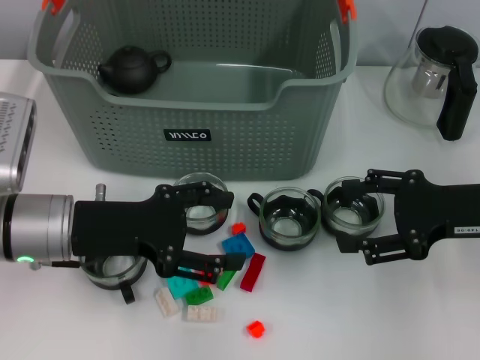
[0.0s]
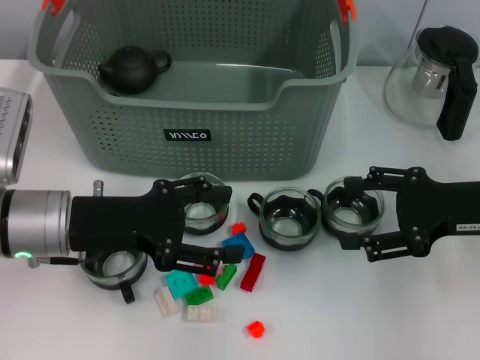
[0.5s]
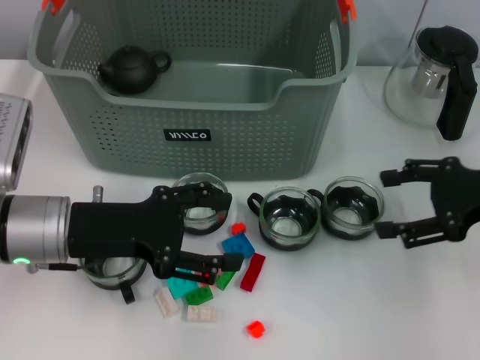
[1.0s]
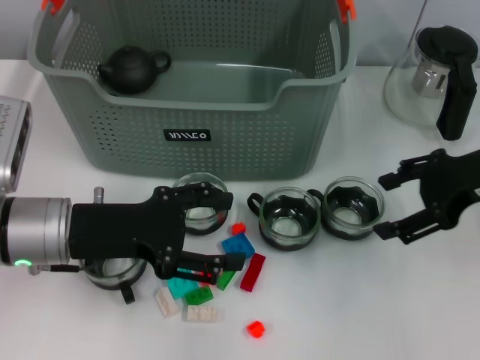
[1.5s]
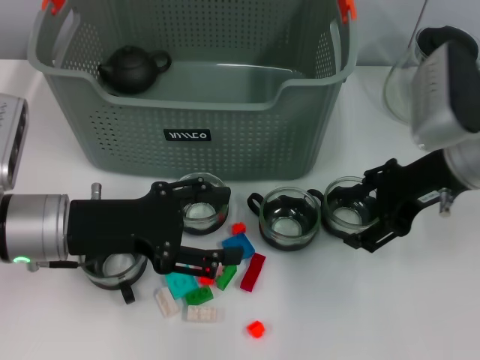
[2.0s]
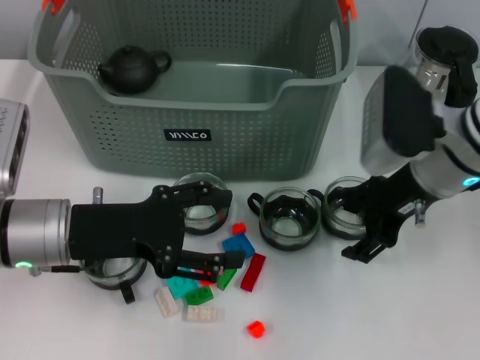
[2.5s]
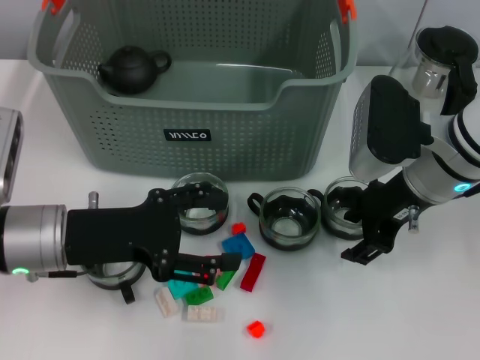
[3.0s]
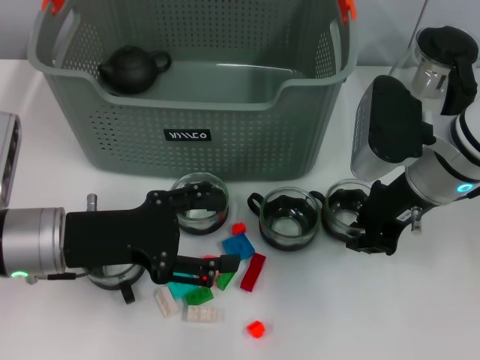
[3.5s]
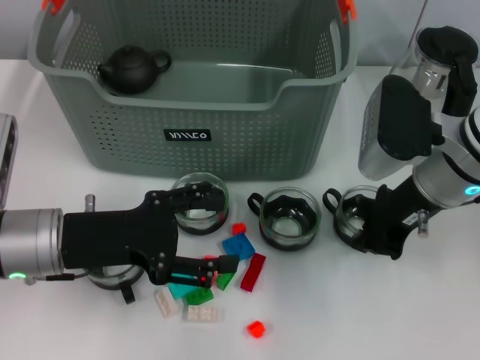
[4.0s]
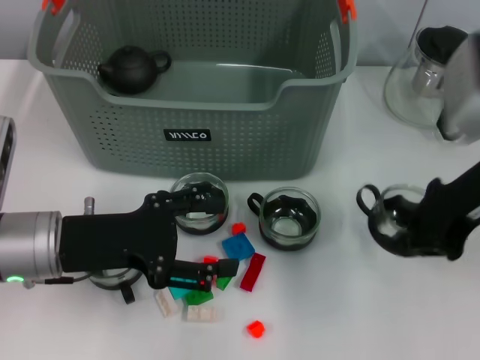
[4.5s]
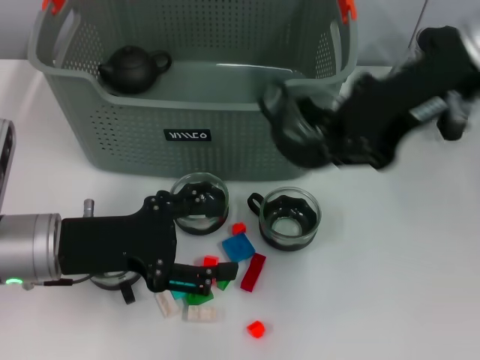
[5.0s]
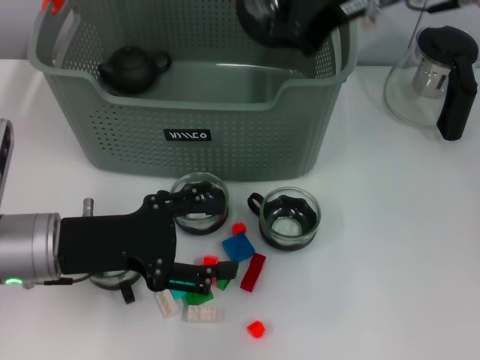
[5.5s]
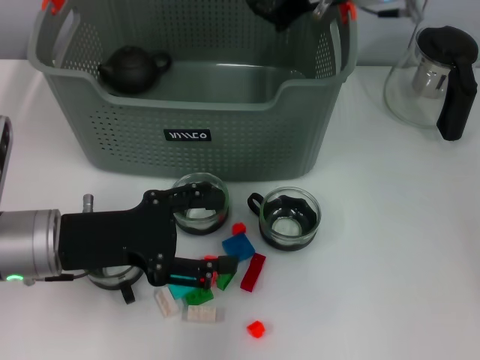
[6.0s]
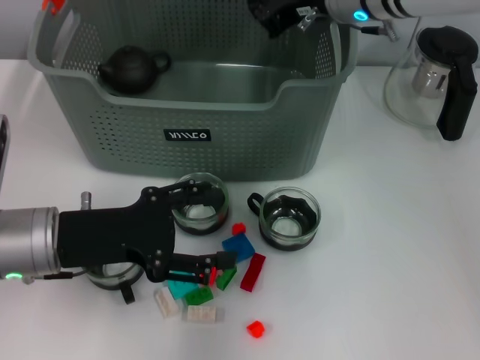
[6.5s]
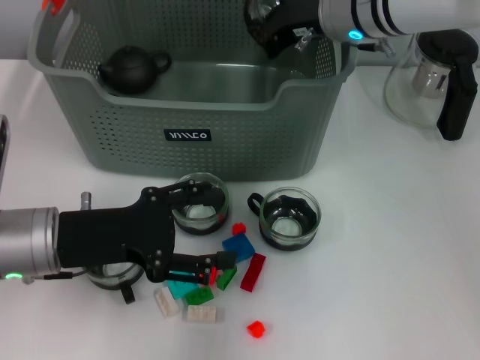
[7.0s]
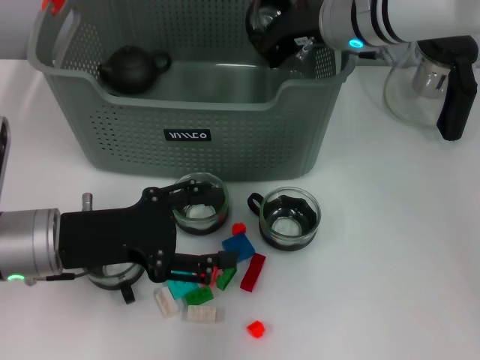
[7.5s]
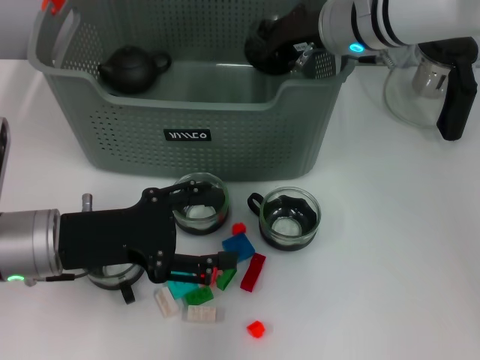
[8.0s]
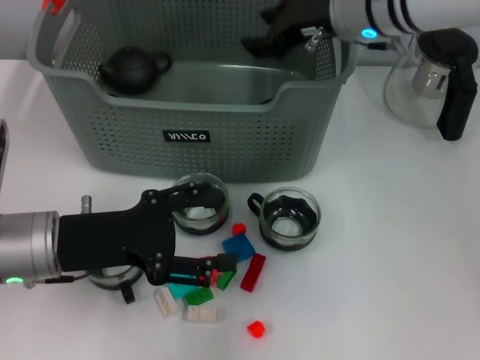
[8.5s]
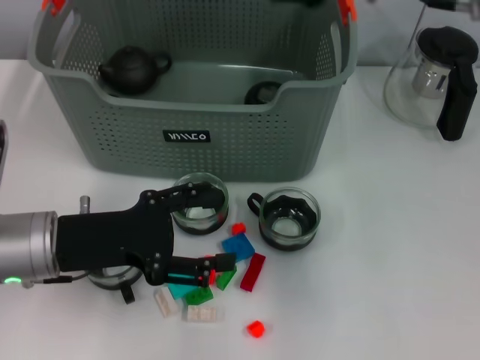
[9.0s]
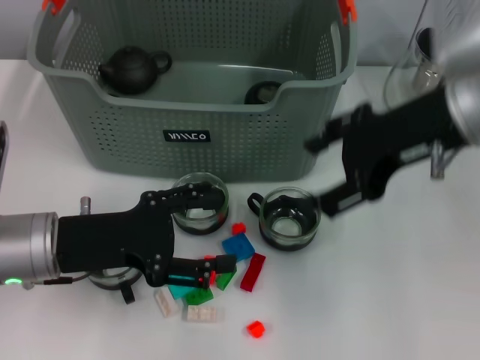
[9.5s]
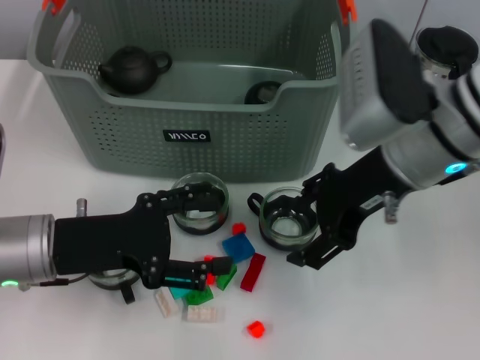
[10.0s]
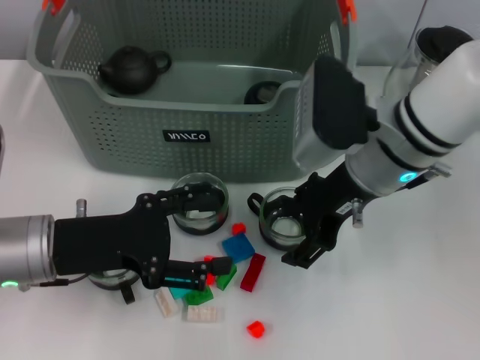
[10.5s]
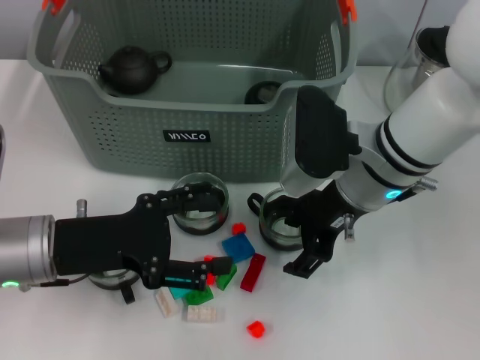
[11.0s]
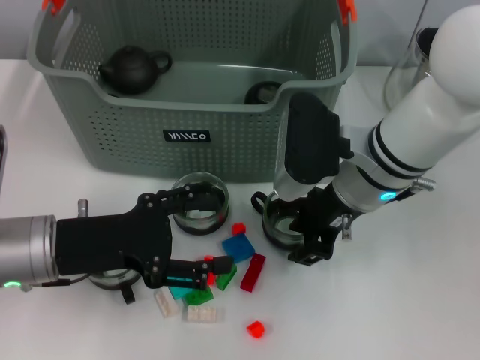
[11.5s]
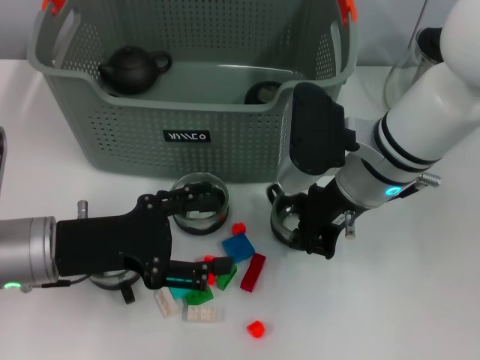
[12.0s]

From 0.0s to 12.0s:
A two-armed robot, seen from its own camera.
Task of the whole recording: pick up the teacup on the table and place it into the storage bin, pick up the block on the table and place it into the storage bin.
Step, from 0.0s to 3.5s: Grasp the cup with right gripper.
Step, from 4.0s to 8.0s: Place the cup in the storage box with right gripper.
Step, from 8.5s to 12.0s: Grasp the cup with right gripper.
From 0.0s to 2.0s: The right gripper travels to the left and forward by about 10 cm.
From 2.0s to 4.0s: The right gripper closes up.
From 4.0s to 6.0s: The right gripper travels upward, forward and to the left by some 15 cm.
From 6.0s to 8.0s: The right gripper goes roughly 5 cm downward.
From 8.0s to 10.0s: The right gripper heads backward, covering approximately 10 cm, and opens up.
From 10.0s to 12.0s: The right gripper travels downward by approximately 5 cm, and closes.

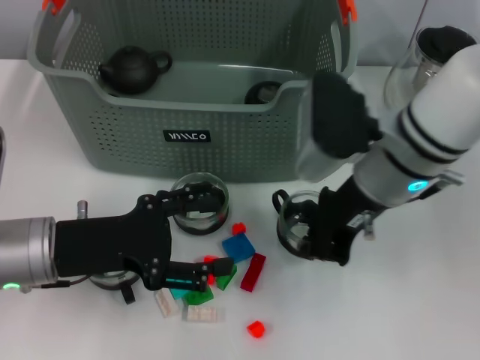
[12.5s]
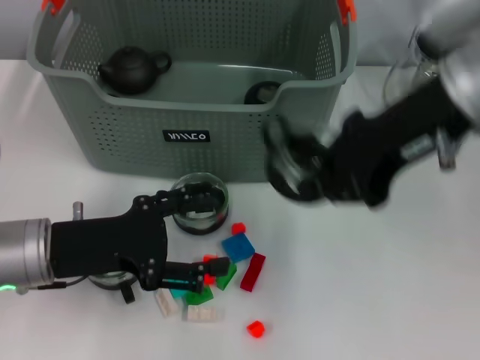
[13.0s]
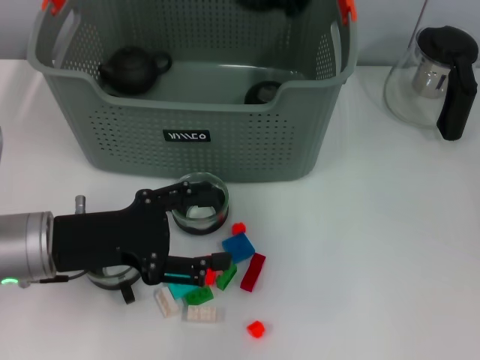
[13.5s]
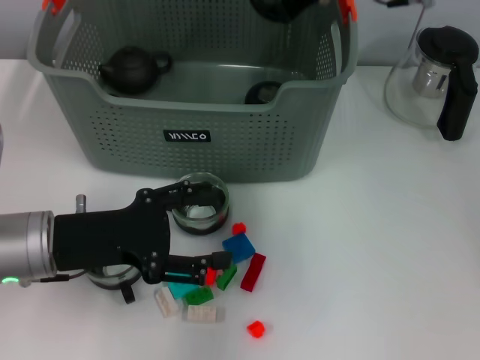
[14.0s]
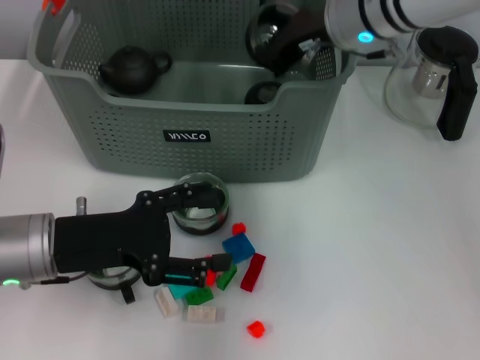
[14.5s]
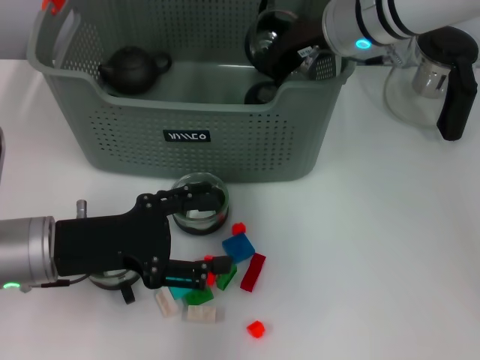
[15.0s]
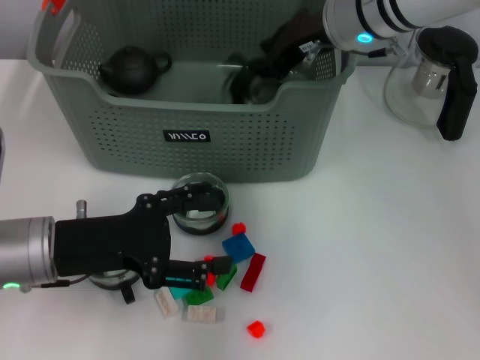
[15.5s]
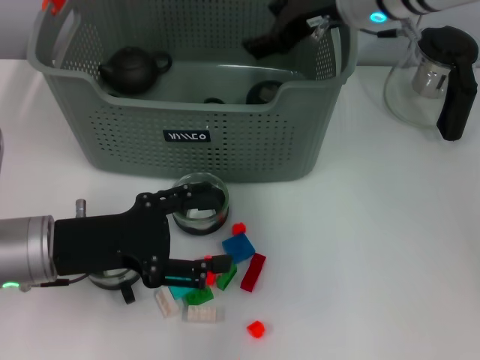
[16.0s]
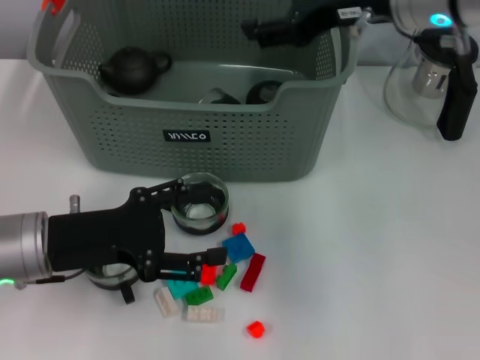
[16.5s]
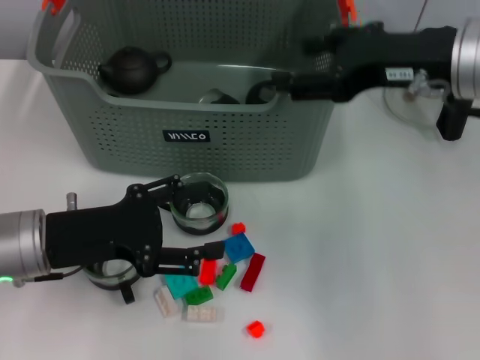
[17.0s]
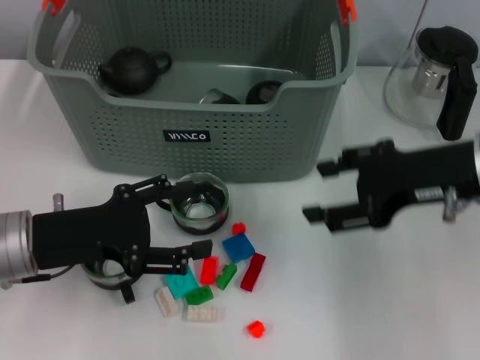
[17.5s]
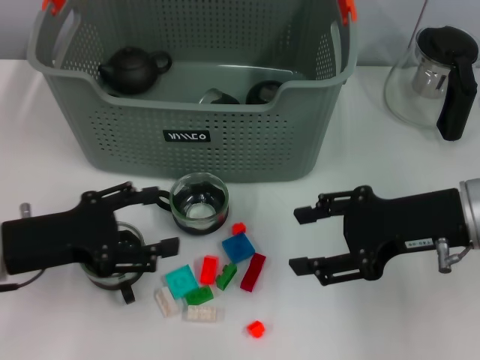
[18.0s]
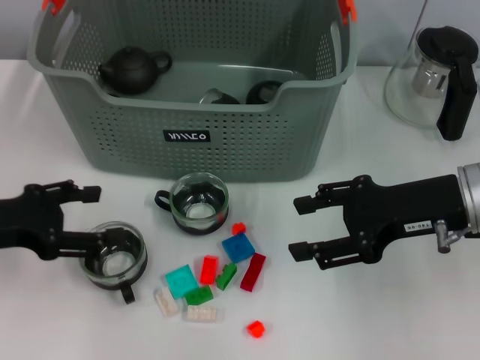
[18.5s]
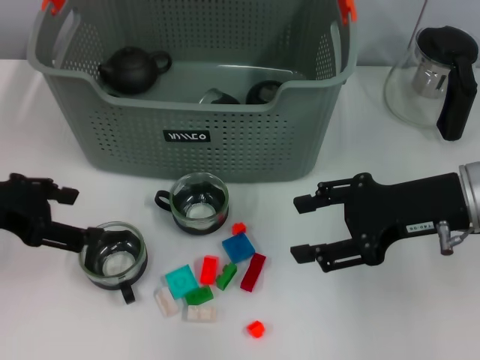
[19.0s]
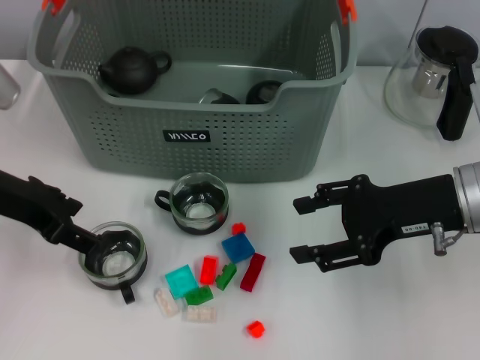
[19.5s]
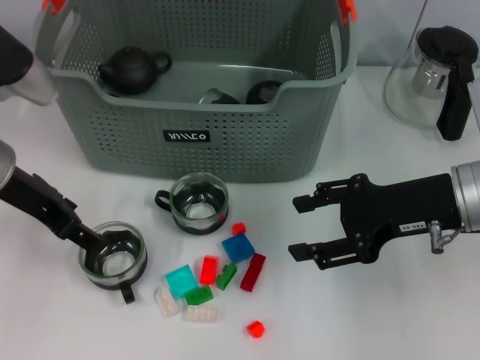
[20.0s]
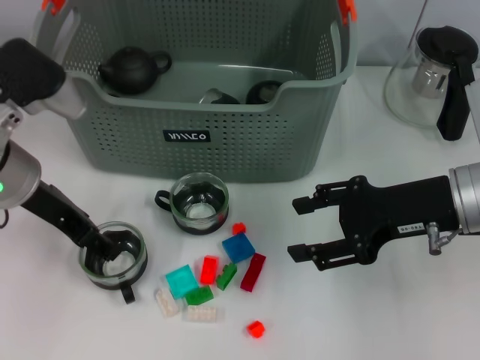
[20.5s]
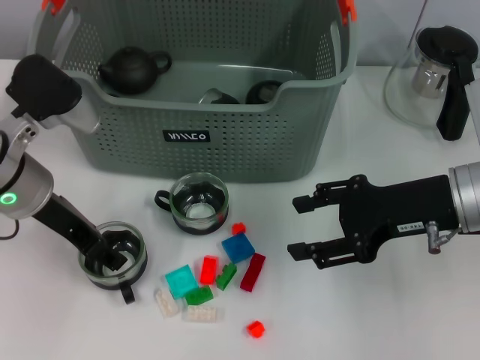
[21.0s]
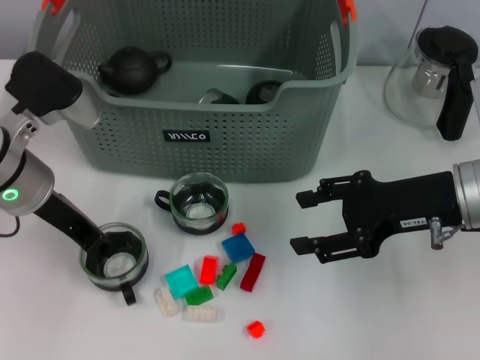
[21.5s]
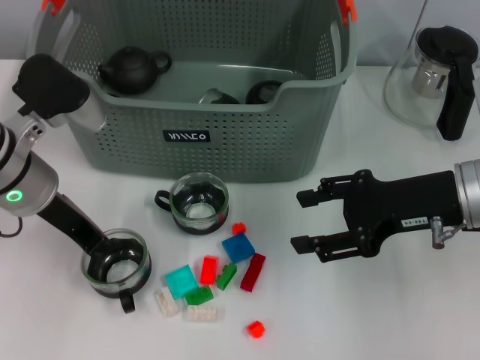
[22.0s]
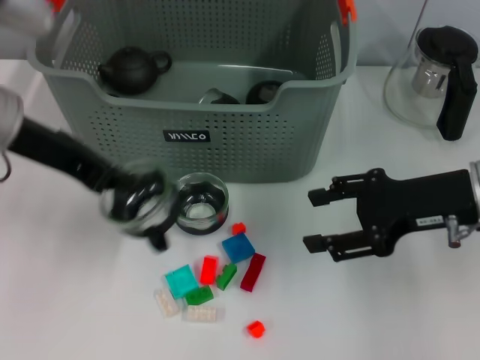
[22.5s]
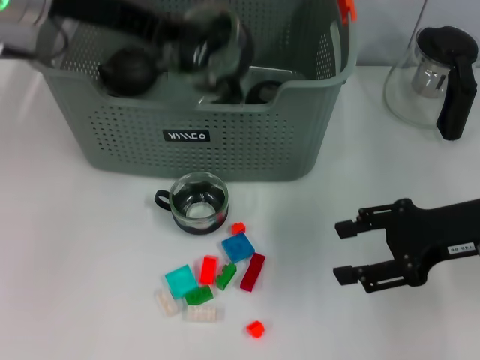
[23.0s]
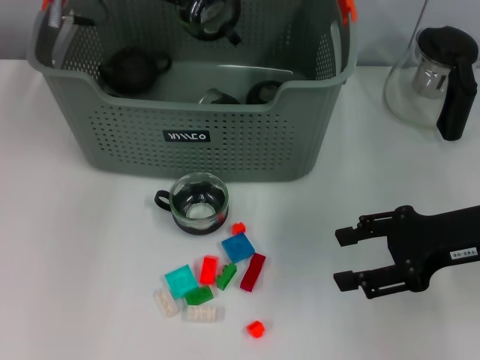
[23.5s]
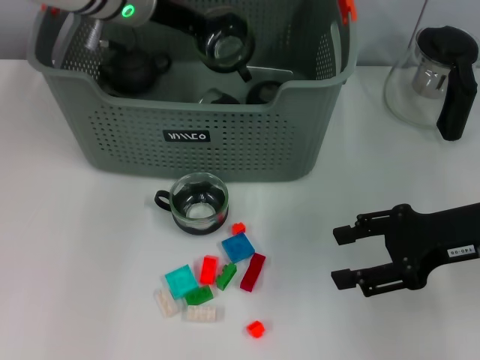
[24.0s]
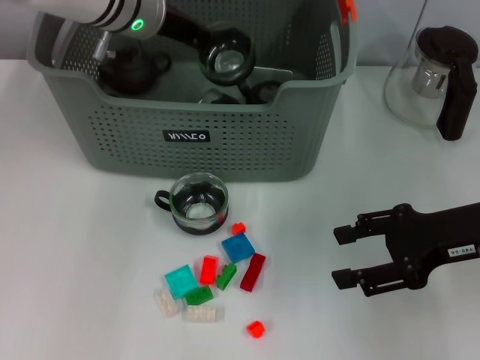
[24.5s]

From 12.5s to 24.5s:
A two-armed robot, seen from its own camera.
Task of the whole recording: pick up the teacup on the table and place it into the storage bin, pick up the block on the table and place it into the storage bin.
Step, from 12.5s to 15.0s: Place the cup in the storage box with right gripper.
Step, from 15.5s to 21.5s: Grasp the cup with left gripper.
From 12.5s to 14.5s: The right gripper is displaced forward by approximately 10 cm, and goes upward and returns, roughly 15 cm each way.
From 14.5s to 16.5s: The right gripper is displaced backward and upward by about 10 cm, and opens.
From 16.5s to 18.5s: The left gripper goes some 10 cm to the left, while the right gripper heads downward, backward and to the right, covering some 15 cm.
From 18.5s to 20.5s: The left gripper goes about 10 cm to the right and forward.
From 20.5s to 22.5s: The left gripper moves upward, roughly 5 cm, and closes up.
From 22.5s to 24.5s: The left gripper heads forward and to the right, covering about 15 cm.

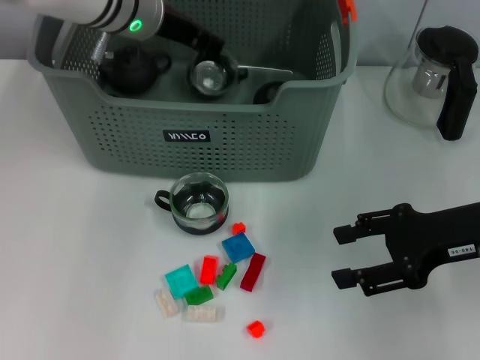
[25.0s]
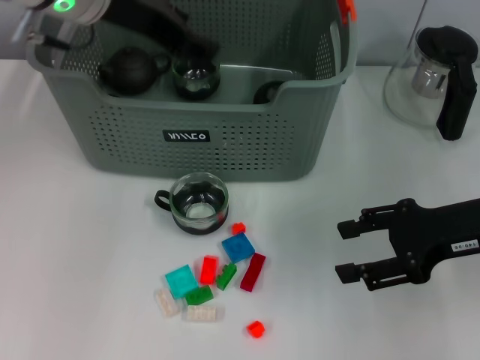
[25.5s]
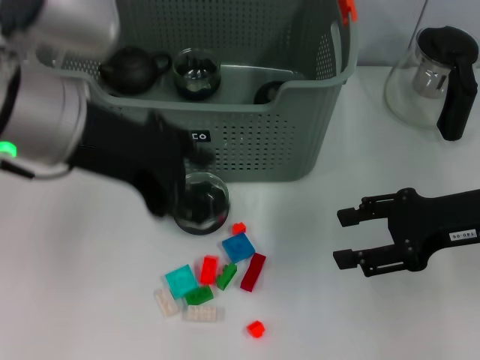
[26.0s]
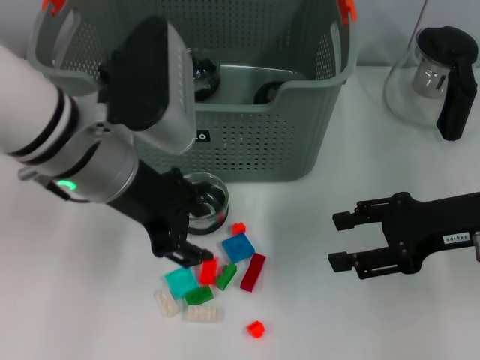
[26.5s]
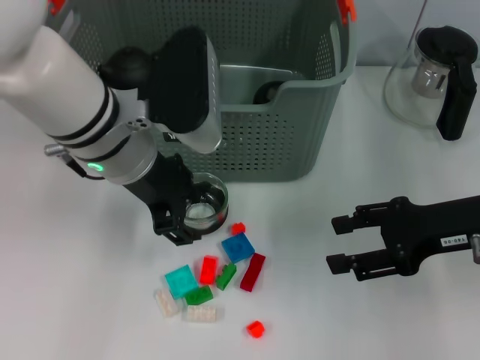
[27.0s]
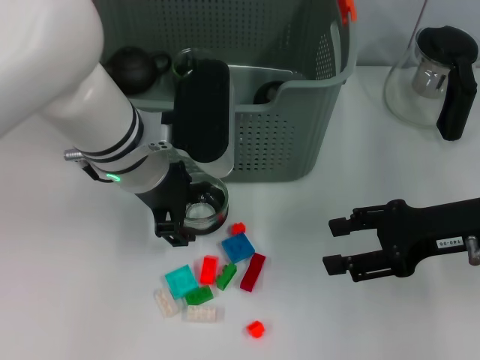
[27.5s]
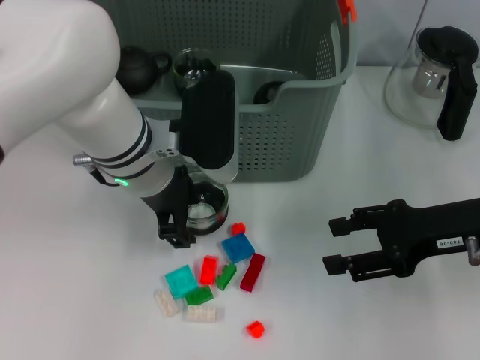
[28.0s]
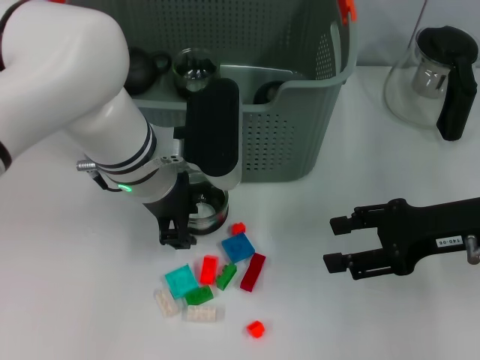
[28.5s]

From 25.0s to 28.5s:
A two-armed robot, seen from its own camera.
Task of the whole recording: pick up the teacup on the table and place it into the storage bin, pick up the block on the table and place it into the storage bin.
From 25.0s to 27.0s: The left gripper goes about 10 cm backward, and opens its fingers.
From 27.0s to 28.5s: The left gripper moves approximately 5 cm.
